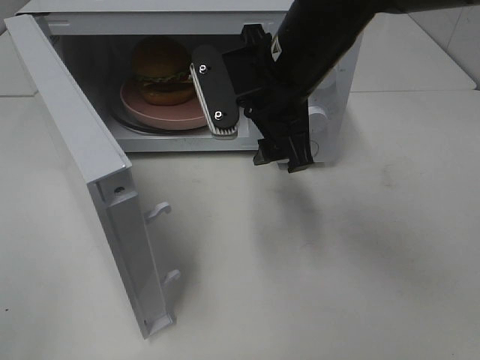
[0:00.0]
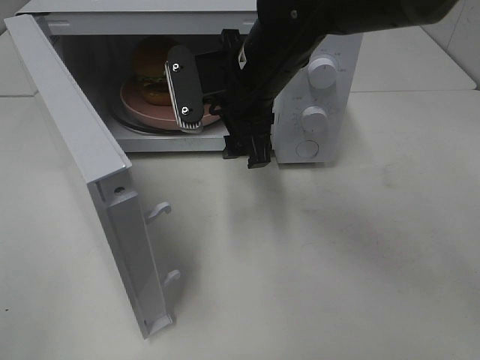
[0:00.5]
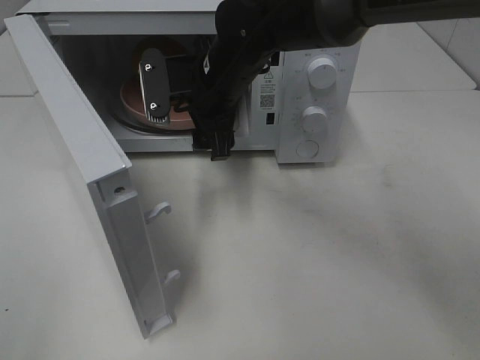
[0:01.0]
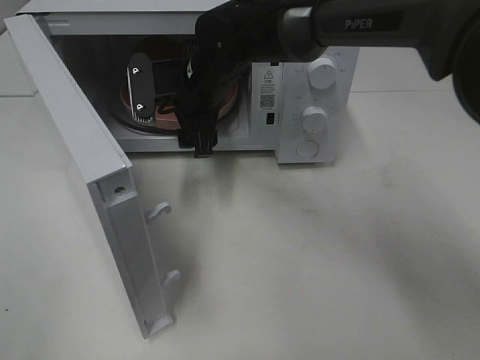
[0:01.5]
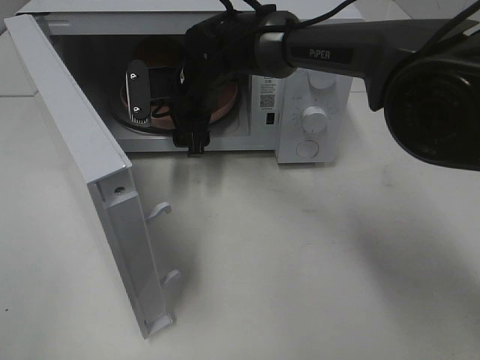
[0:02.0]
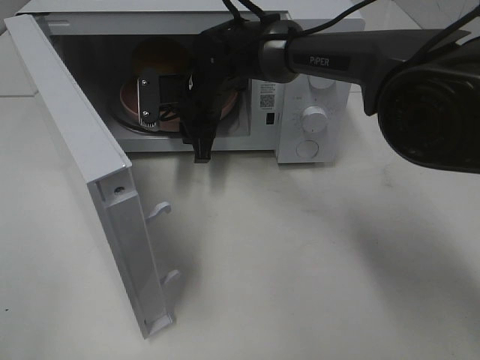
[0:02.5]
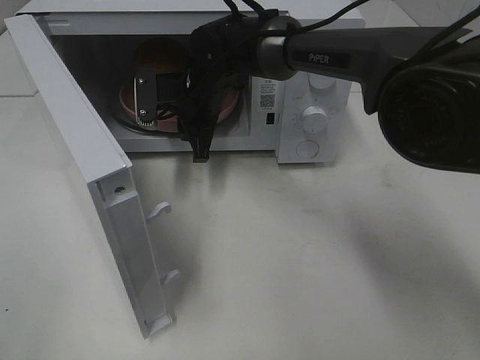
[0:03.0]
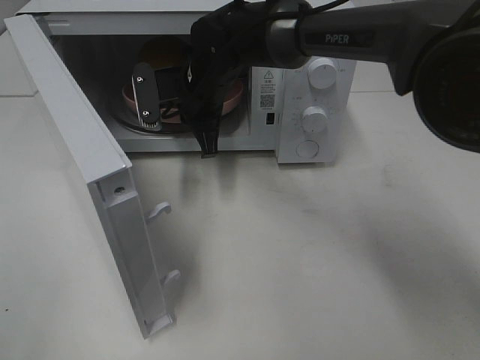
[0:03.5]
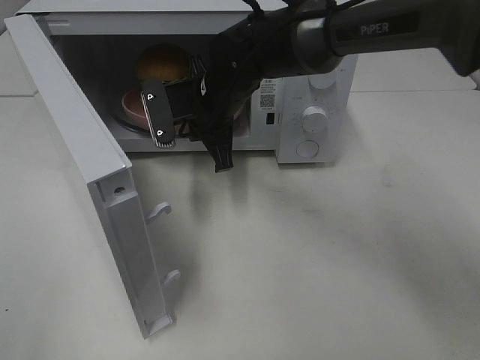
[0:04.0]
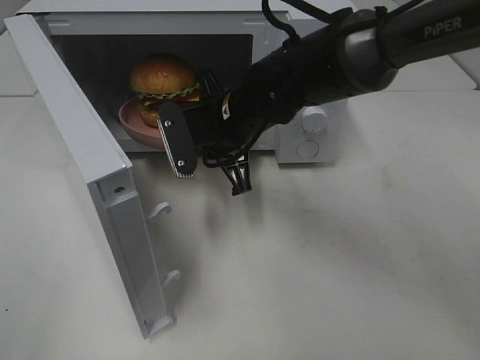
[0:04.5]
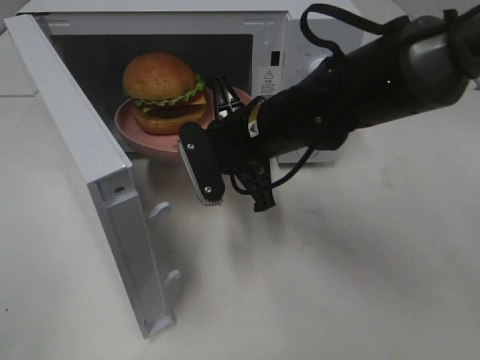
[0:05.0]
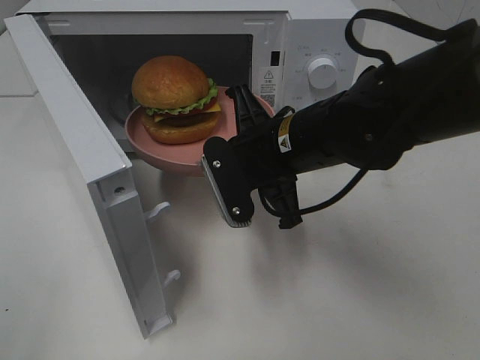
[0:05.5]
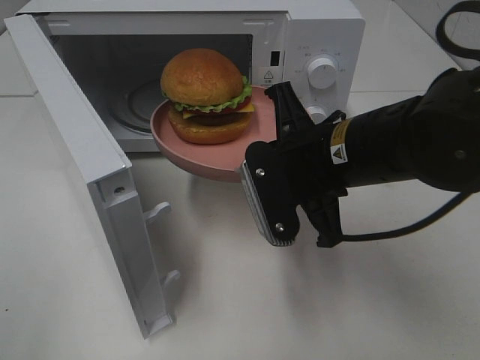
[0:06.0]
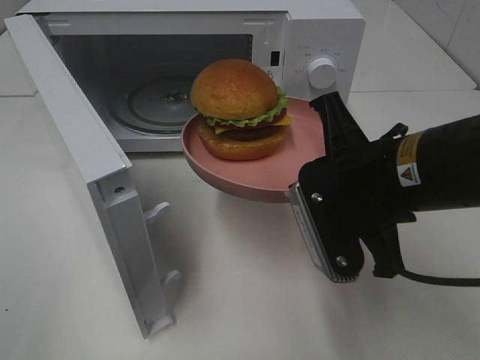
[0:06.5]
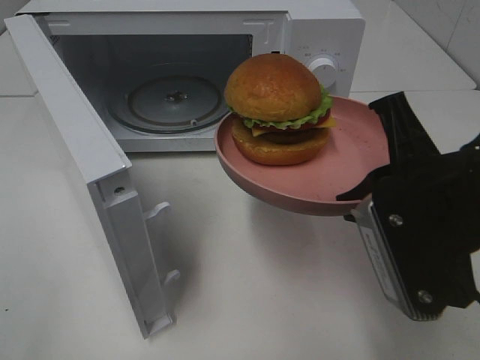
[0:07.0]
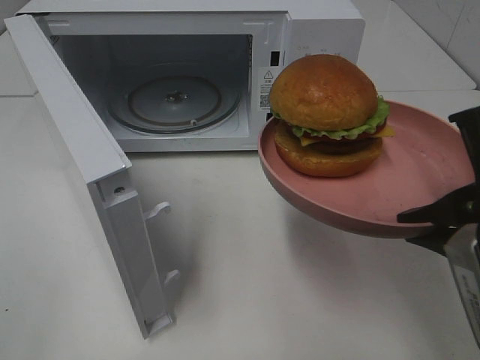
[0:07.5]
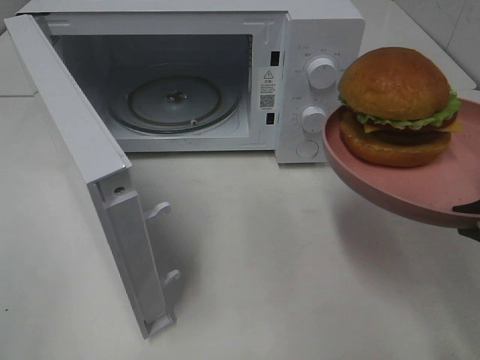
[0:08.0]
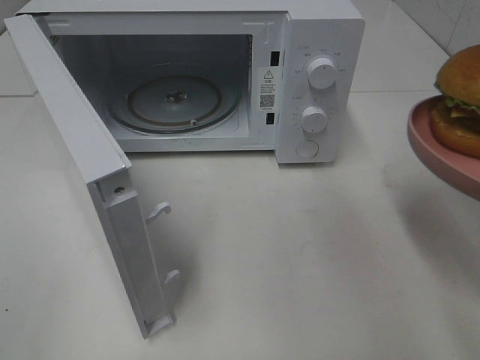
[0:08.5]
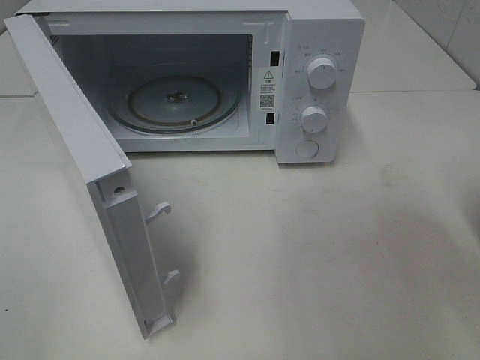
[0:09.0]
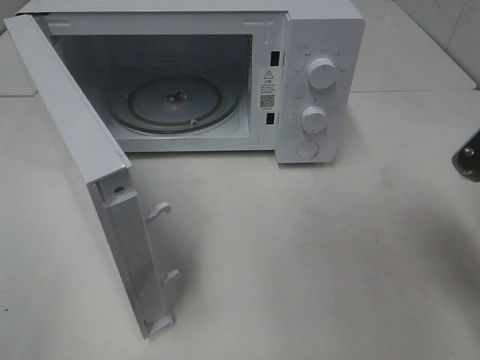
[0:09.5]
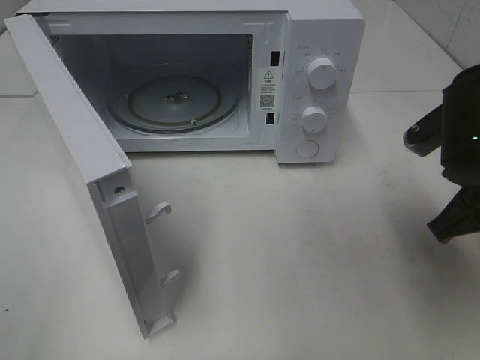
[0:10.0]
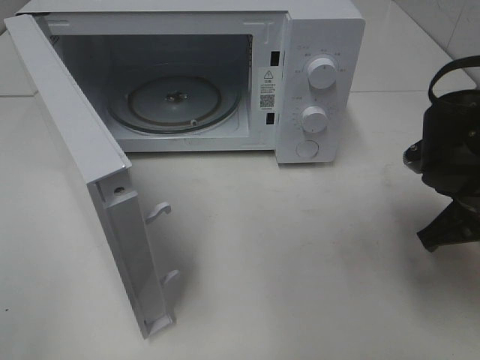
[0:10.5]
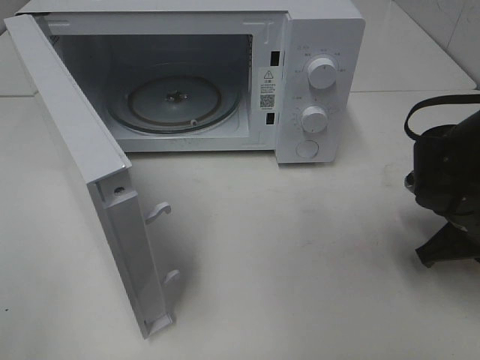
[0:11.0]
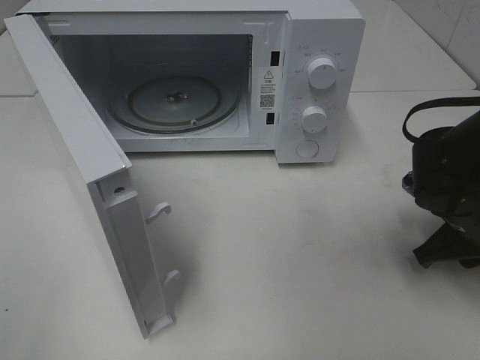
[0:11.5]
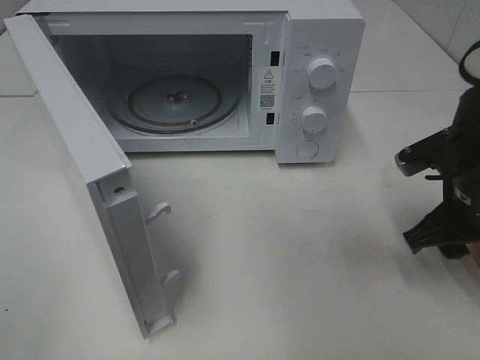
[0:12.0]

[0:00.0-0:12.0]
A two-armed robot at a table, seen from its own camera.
Task of the whole recording: Heat the burger.
Step, 0:00.0 to 0:03.5: Right hand: grab the plate with the hamburger.
Step, 0:04.0 to 0:12.0: Right hand: place the plate on the table.
0:00.0 to 0:02.0: The right gripper travels forward, to the left and downward by about 20 cm.
0:02.0 to 0:04.0: The right gripper shifts by about 5 cm, and closes its fingers.
0:04.0 to 0:06.0: The right gripper shifts approximately 20 cm backward and to the right.
0:06.0 to 0:08.0: The right gripper moves to the right and backward, about 20 cm.
0:08.0 to 0:10.0: The right gripper heads forward and downward, covering roughly 10 cm.
0:10.0 to 0:12.0: The right gripper opens up.

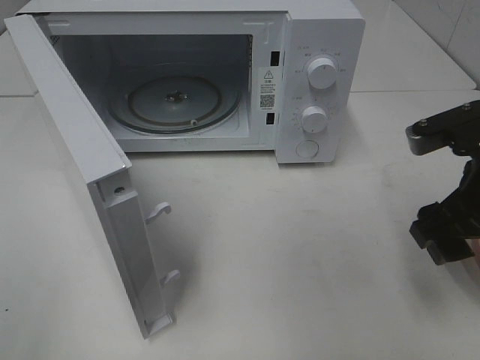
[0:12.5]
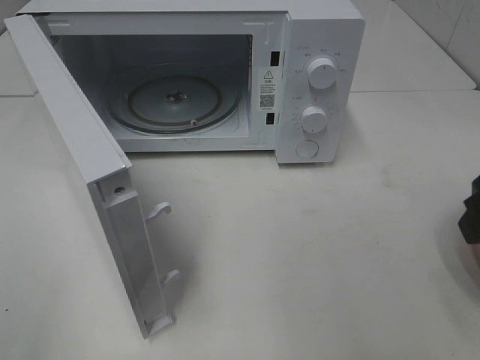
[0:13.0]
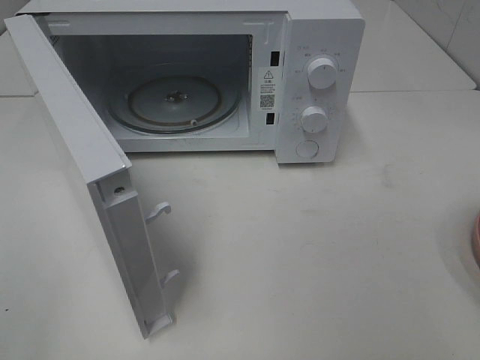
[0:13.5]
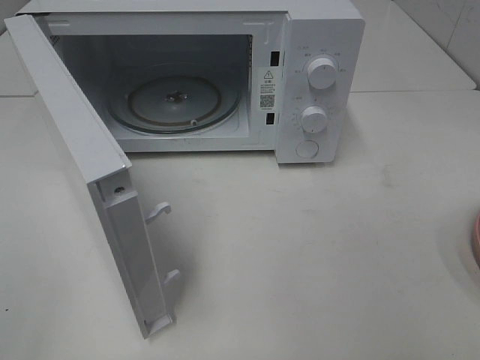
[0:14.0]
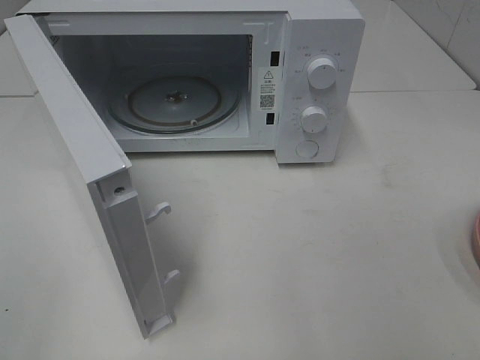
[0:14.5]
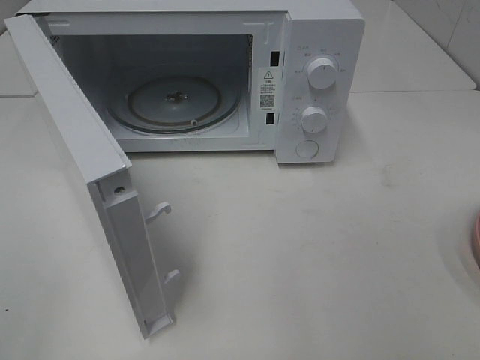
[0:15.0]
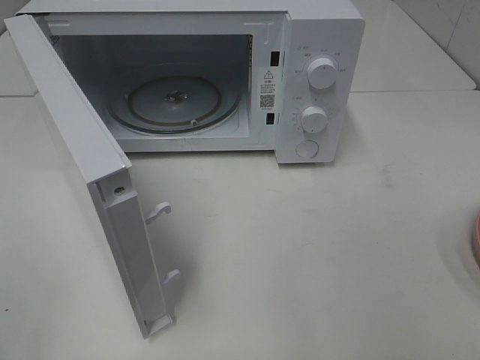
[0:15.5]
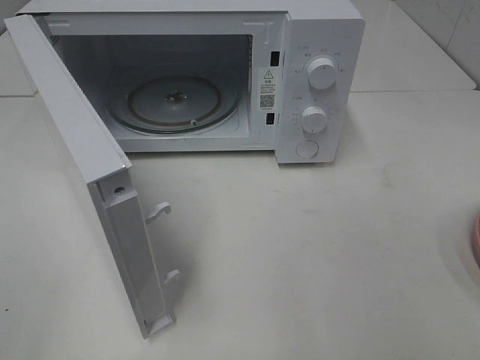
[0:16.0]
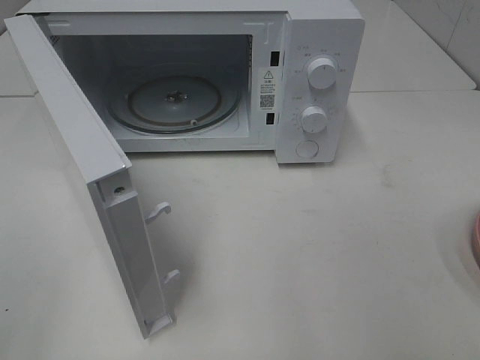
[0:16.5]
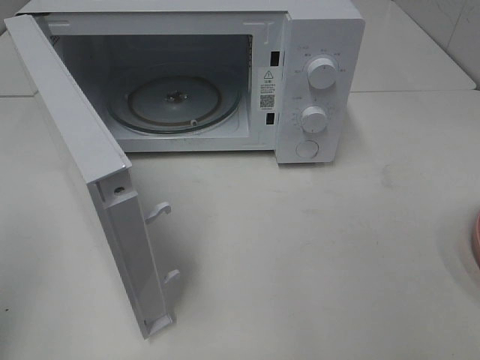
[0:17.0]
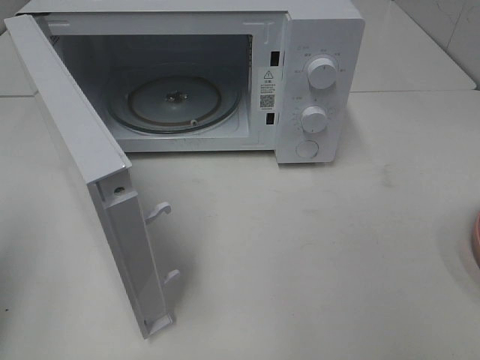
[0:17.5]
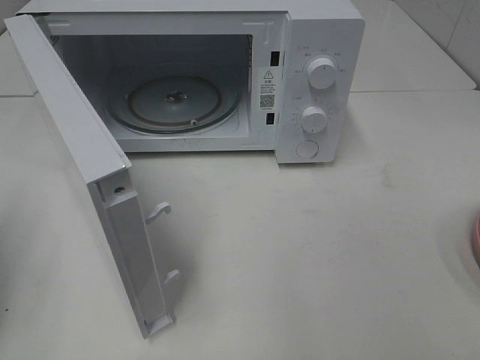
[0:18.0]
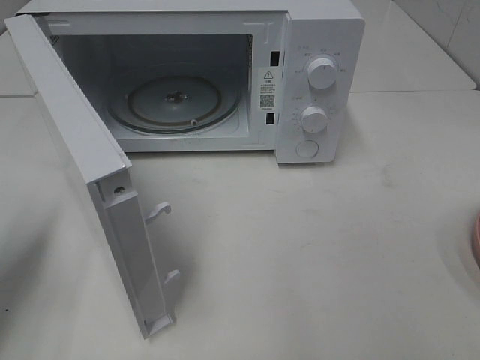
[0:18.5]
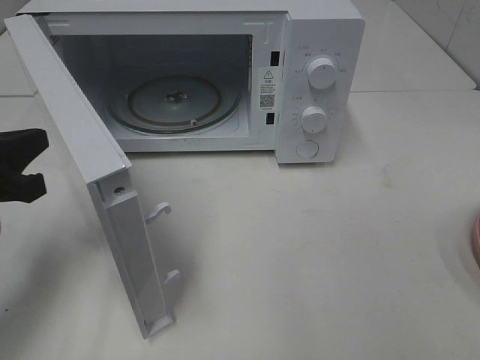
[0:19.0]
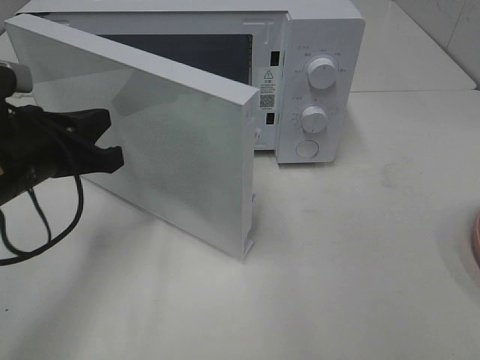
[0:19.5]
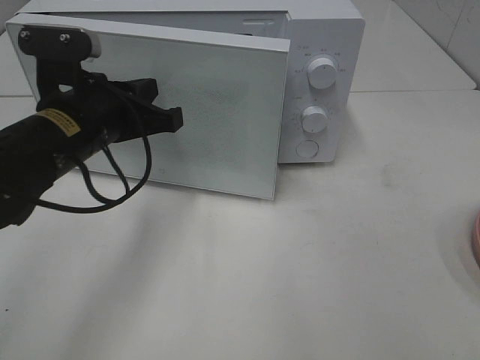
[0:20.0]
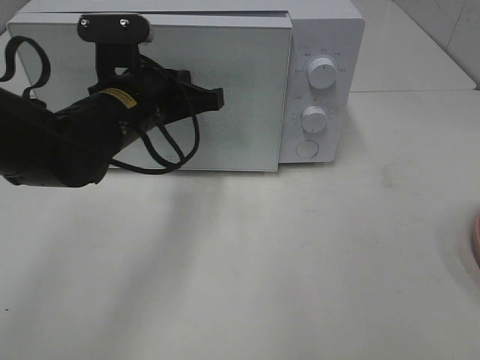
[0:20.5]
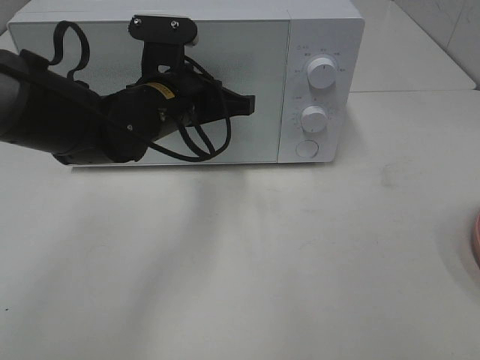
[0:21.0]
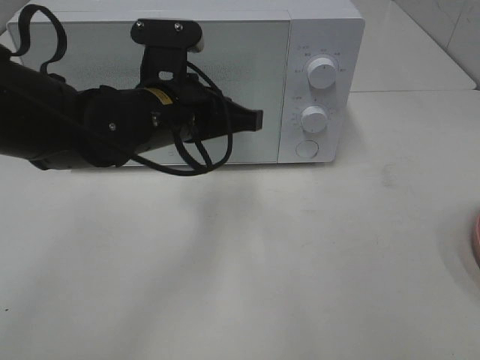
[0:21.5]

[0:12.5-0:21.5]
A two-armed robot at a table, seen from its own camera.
Task of the whole recording: Heat the burger.
0:12.5 to 0:14.5: The right gripper goes about 20 cm backward.
0:17.0 to 0:19.5: The left gripper moves forward, downward and to the right, about 25 cm.
0:19.5 to 0:21.5: The left gripper travels to the right by roughly 15 cm.

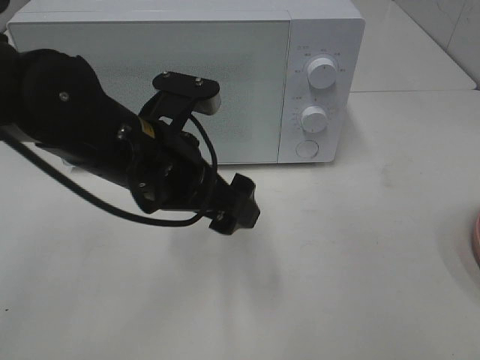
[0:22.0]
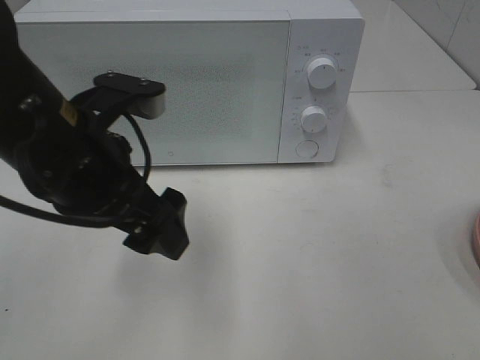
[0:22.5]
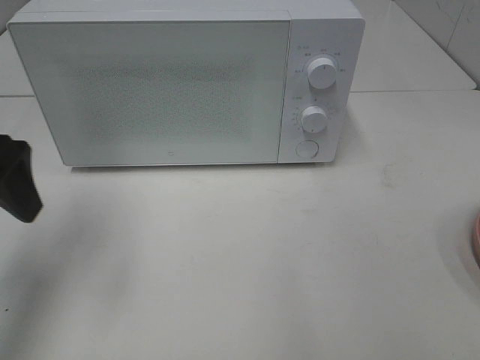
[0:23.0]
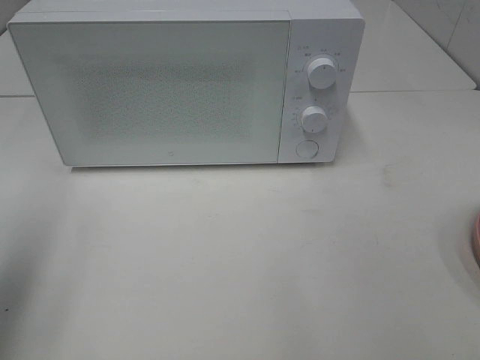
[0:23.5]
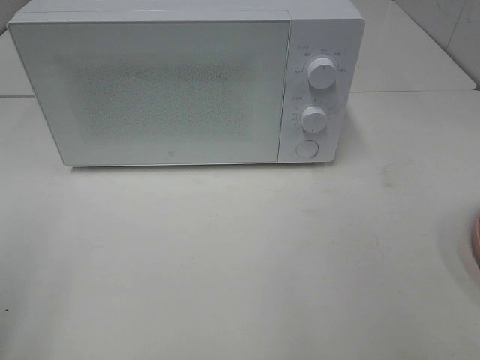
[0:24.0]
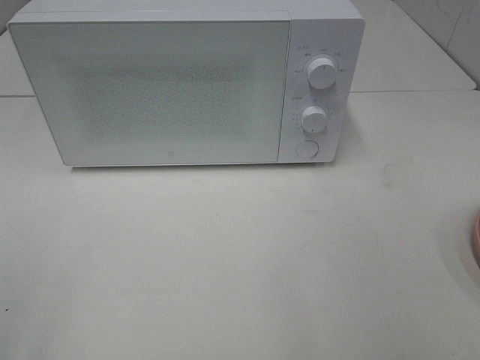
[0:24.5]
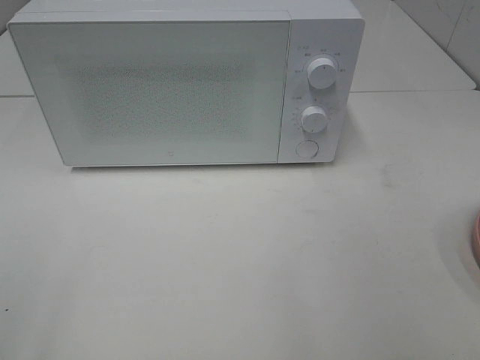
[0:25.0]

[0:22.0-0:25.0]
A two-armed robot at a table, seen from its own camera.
Task of the whole recording: Heat the burger.
0:22.0 to 0:23.5: The left gripper moves to the left and upward, approximately 25 cm.
0:23.5 to 0:25.0: The left gripper heads backward, covering roughly 15 cm.
